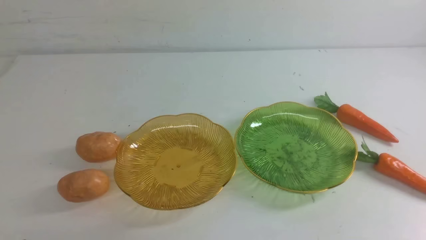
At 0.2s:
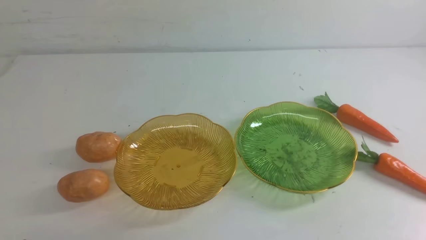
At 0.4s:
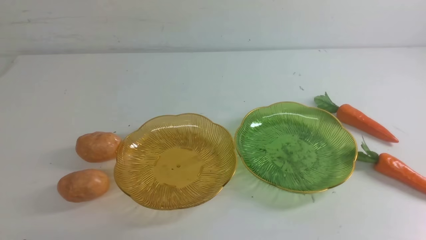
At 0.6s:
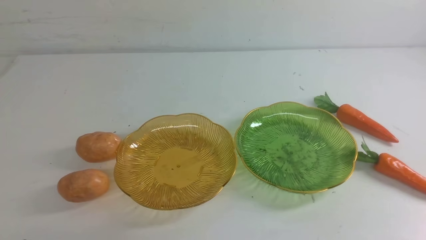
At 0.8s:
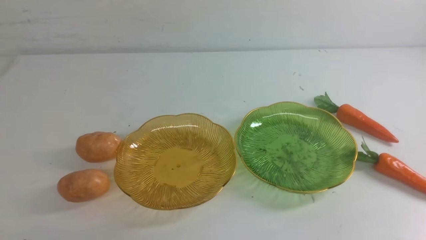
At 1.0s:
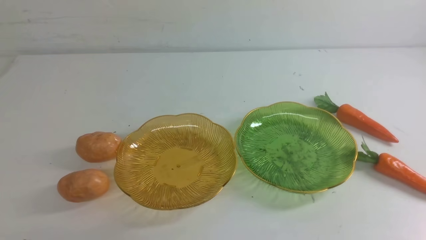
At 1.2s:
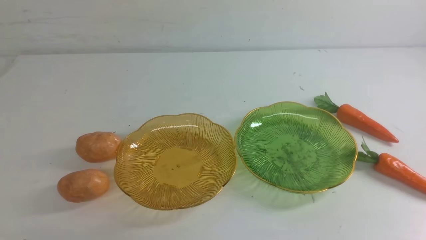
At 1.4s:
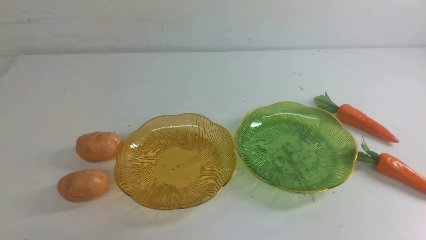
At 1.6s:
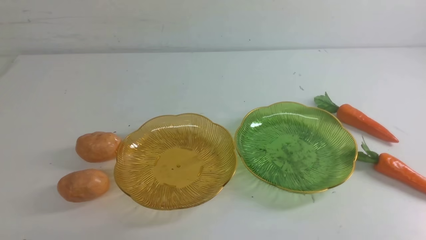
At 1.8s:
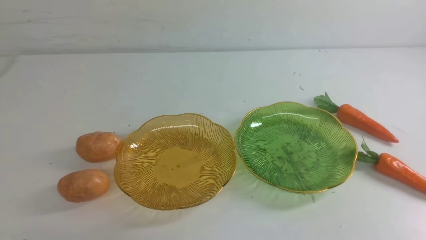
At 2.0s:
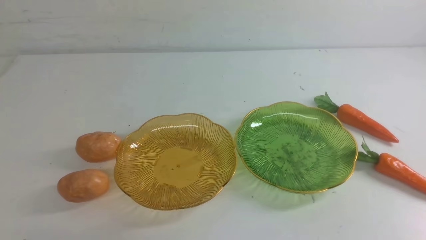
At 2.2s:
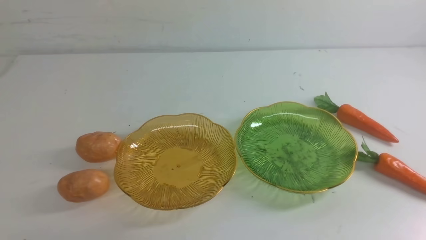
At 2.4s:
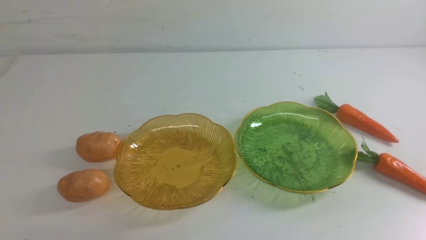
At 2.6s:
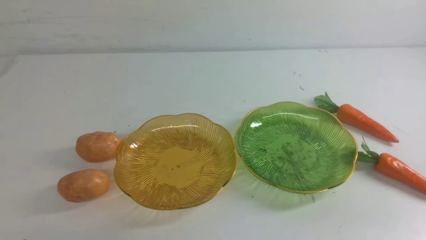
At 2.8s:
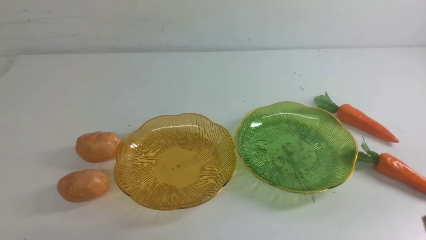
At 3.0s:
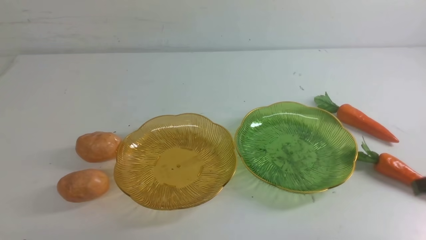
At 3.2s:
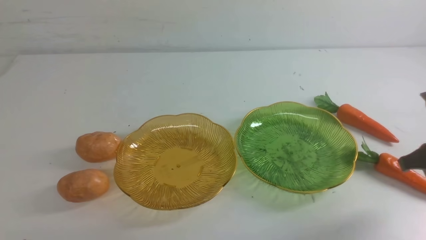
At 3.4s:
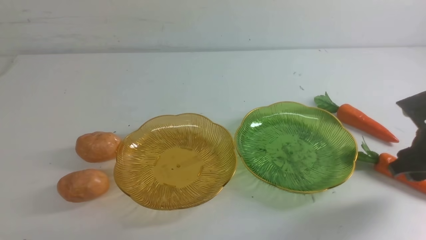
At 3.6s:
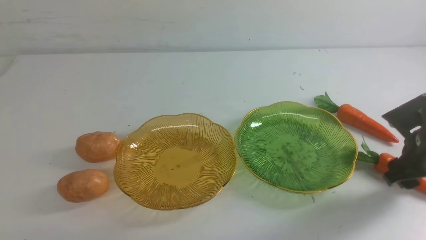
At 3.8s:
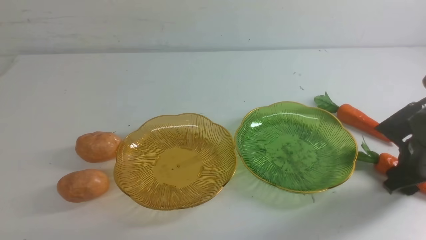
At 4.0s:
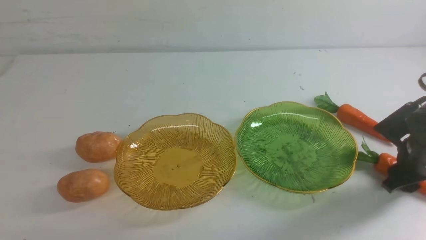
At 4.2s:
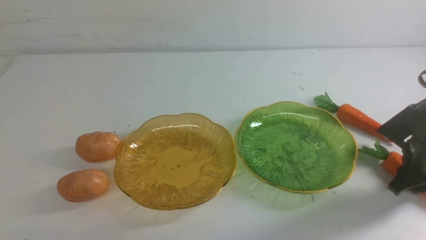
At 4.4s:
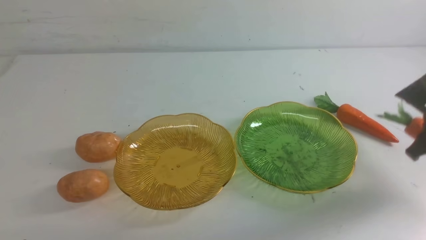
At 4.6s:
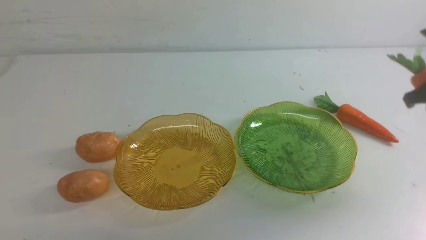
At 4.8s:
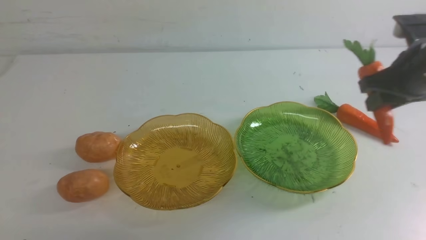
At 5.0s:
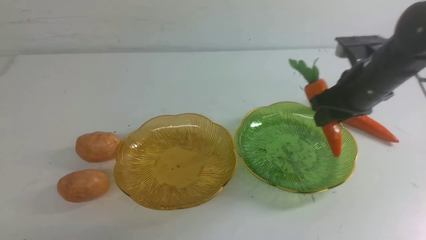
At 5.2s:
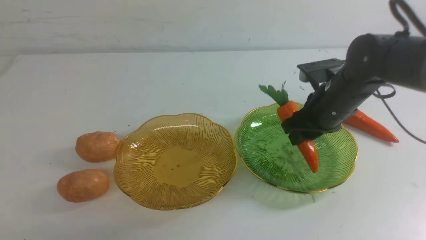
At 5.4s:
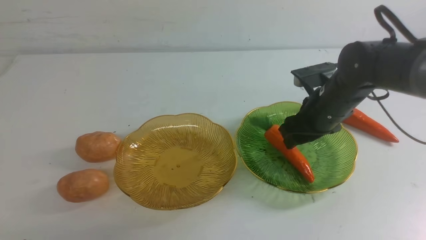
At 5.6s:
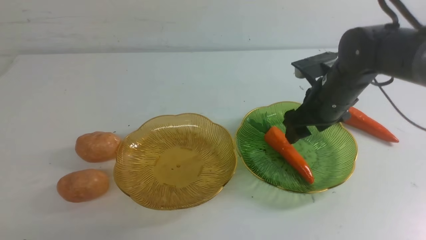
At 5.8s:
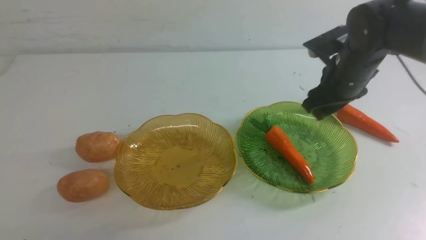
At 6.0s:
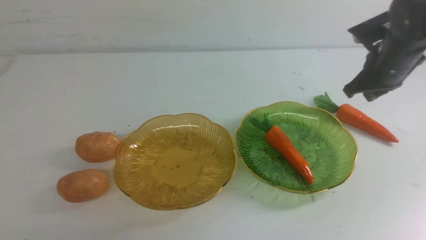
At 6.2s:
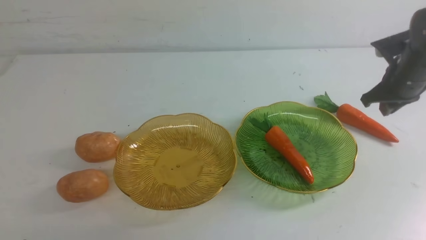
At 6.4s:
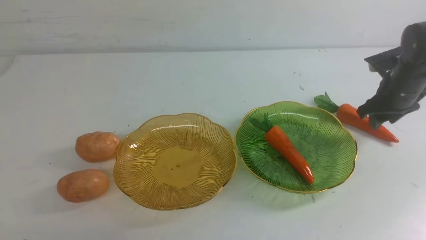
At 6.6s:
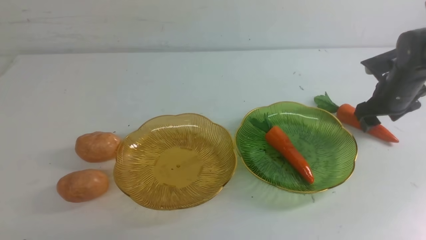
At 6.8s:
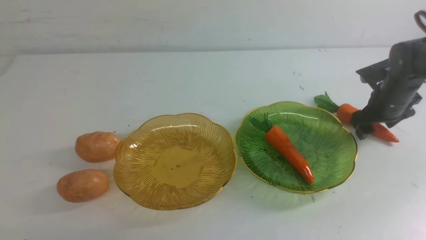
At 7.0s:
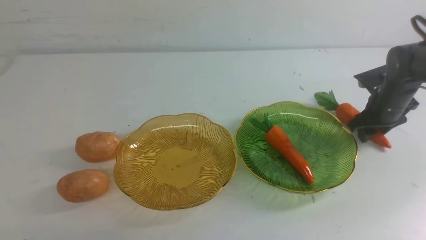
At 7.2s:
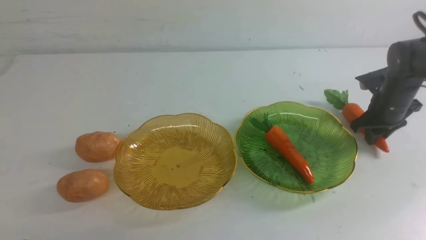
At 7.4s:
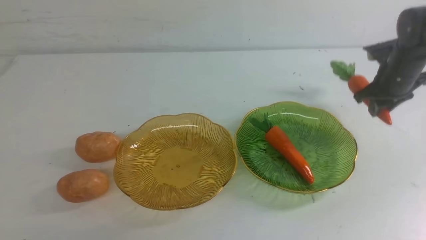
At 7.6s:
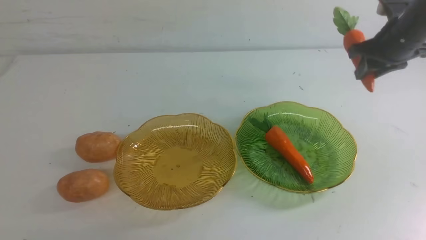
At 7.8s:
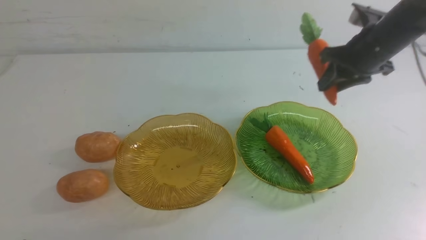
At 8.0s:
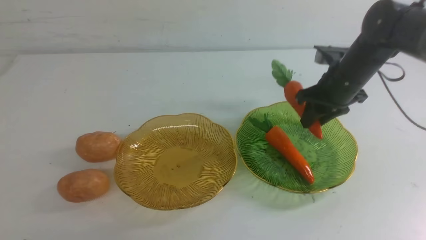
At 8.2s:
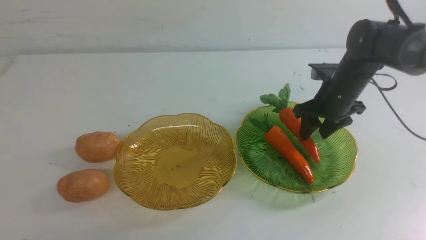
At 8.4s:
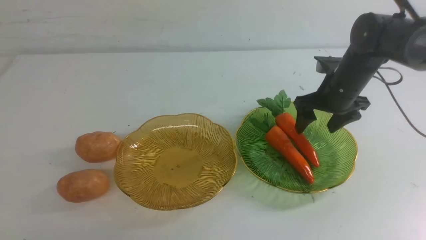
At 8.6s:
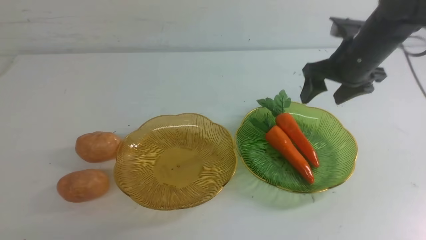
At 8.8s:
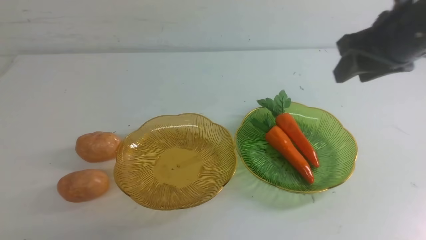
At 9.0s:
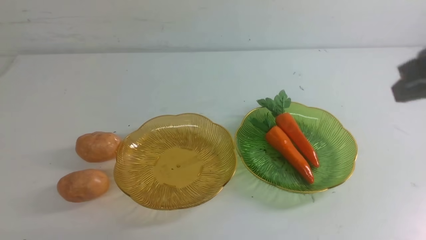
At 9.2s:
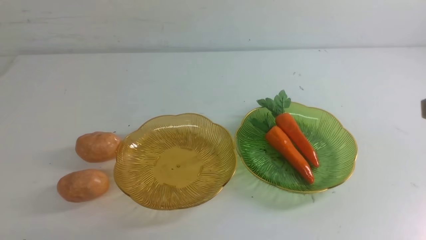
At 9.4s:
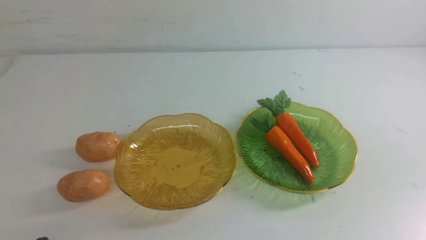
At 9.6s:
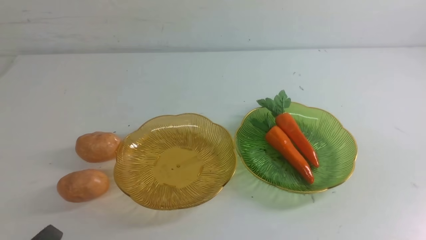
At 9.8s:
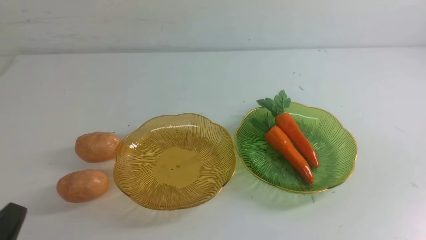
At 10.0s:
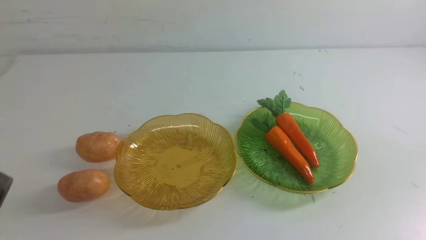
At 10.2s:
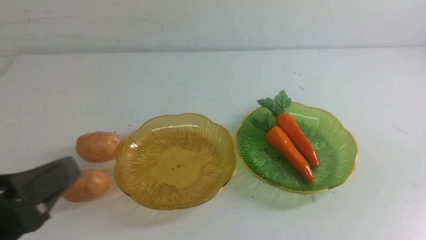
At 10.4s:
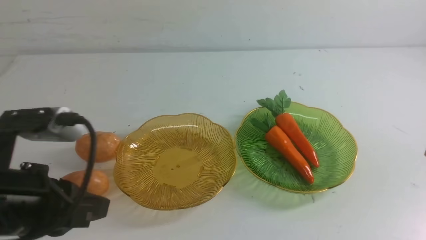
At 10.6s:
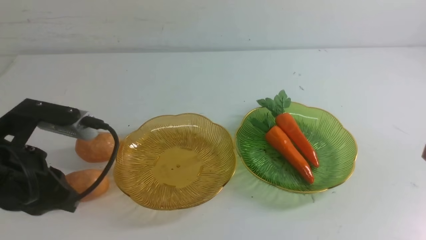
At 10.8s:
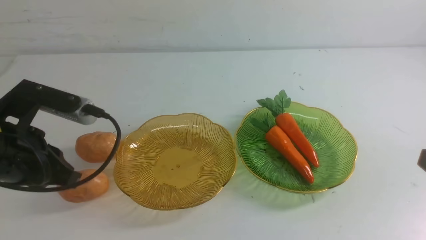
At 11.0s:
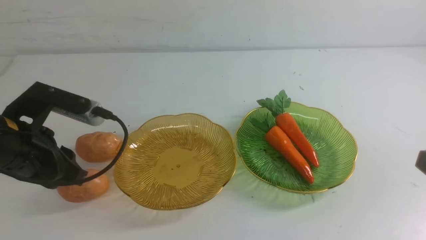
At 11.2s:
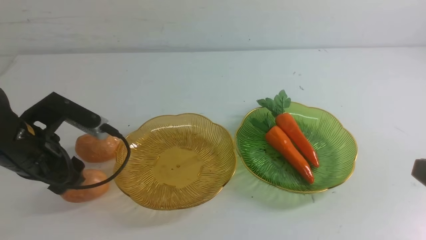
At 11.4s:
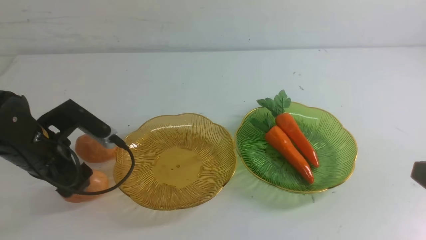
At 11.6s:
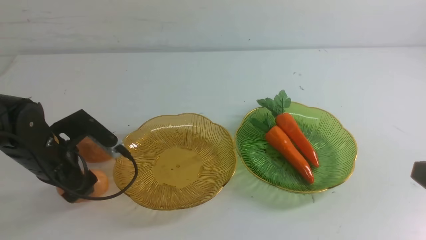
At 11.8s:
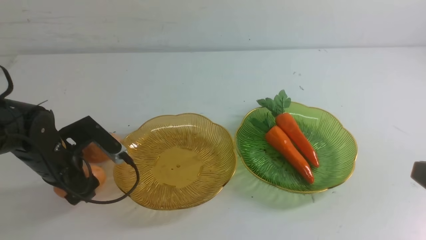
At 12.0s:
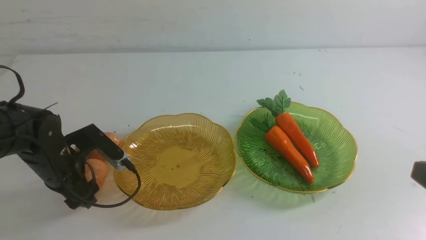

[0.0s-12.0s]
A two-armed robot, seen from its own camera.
Step, 0.0s to 8.4s: use the right arm to grab a carrot and put it into the right plate.
3.0s to 4.4s: The right gripper is displaced forward by some 10 cm, and opens up.
4.4s to 6.0s: The right gripper travels forward by approximately 10 cm, travels to the left and back again, about 15 cm each way, and opens and closes again.
6.0s to 7.6s: The right gripper moves to the left, about 10 cm, goes downward and returns, some 5 cm each way, and opens, then closes once more.
7.6s to 9.0s: The right gripper moves backward and upward, about 30 cm, and closes.
9.0s to 10.4s: The right gripper goes some 5 cm downward; the left gripper moves upward and forward, some 15 cm.
10.4s to 12.0s: The left gripper moves forward and downward, some 20 cm, and opens its fingers.

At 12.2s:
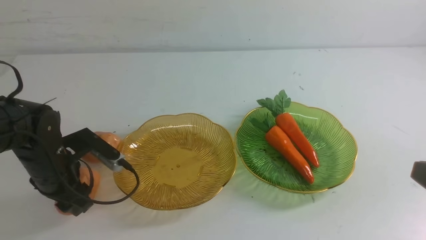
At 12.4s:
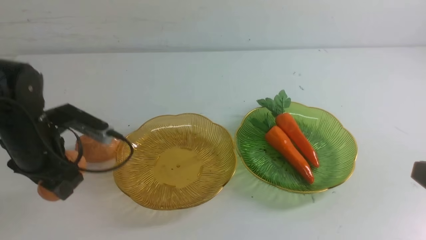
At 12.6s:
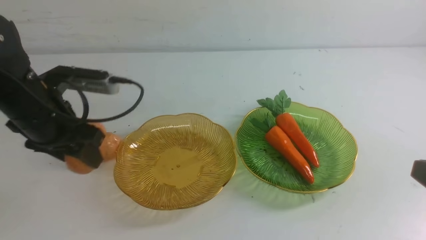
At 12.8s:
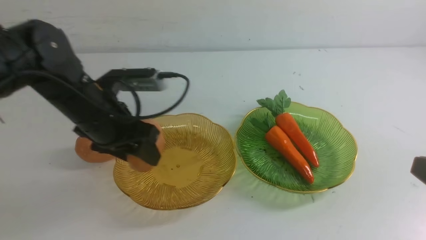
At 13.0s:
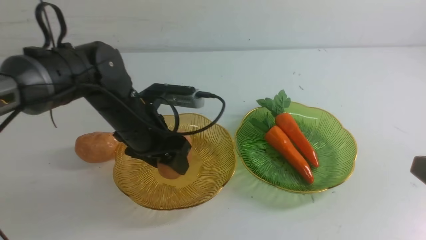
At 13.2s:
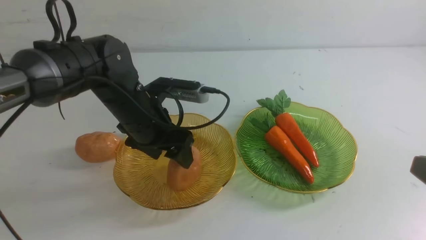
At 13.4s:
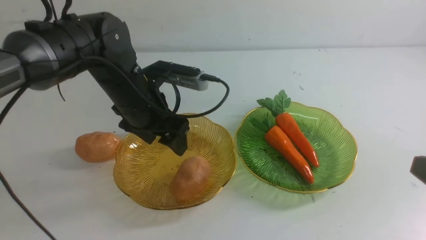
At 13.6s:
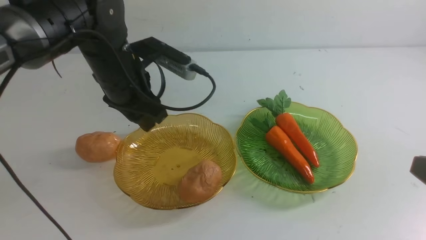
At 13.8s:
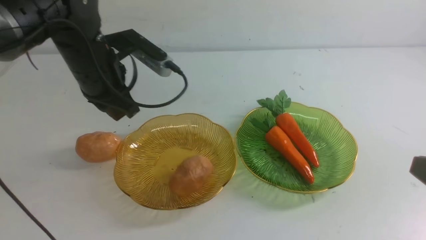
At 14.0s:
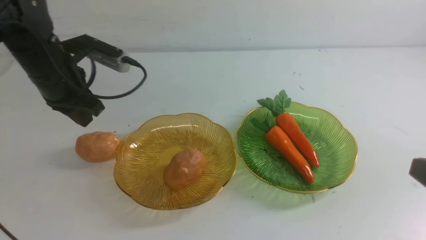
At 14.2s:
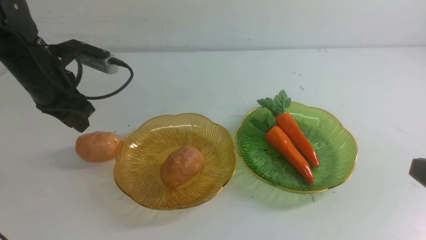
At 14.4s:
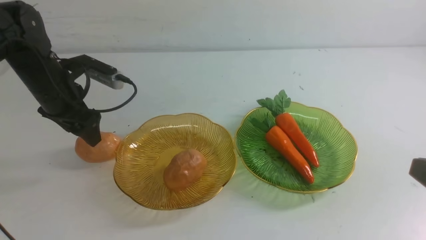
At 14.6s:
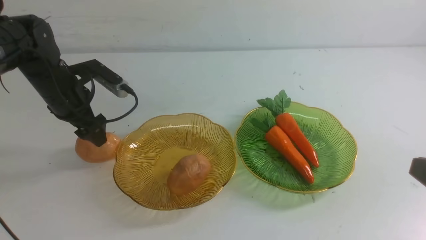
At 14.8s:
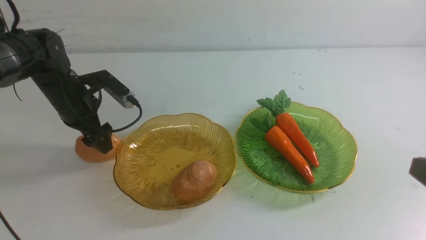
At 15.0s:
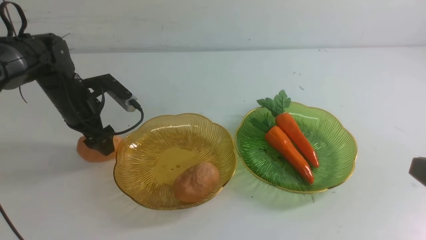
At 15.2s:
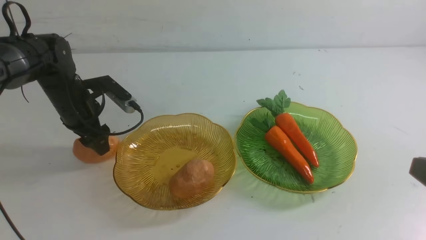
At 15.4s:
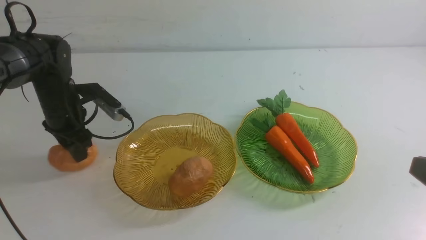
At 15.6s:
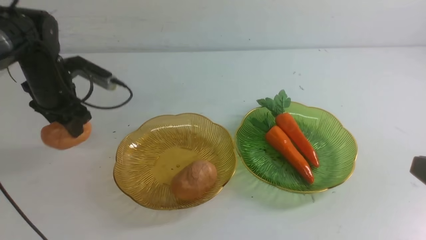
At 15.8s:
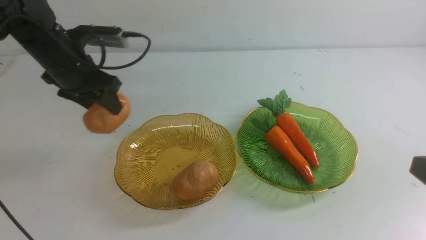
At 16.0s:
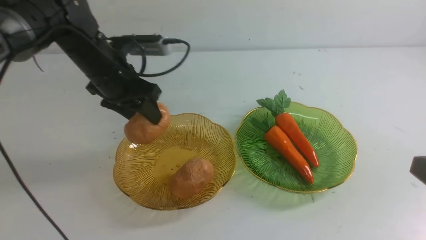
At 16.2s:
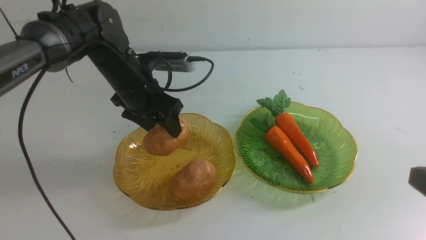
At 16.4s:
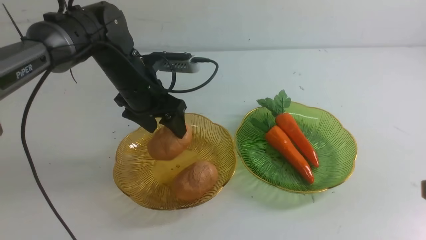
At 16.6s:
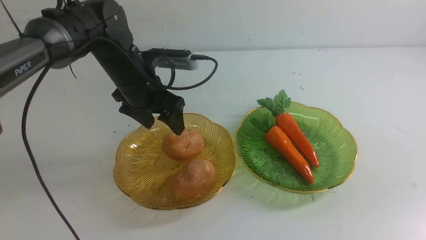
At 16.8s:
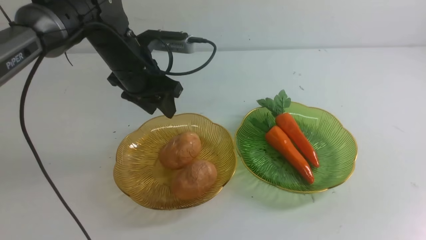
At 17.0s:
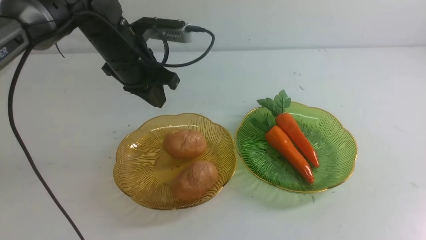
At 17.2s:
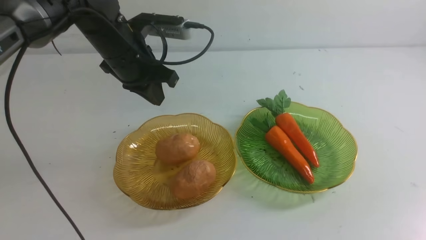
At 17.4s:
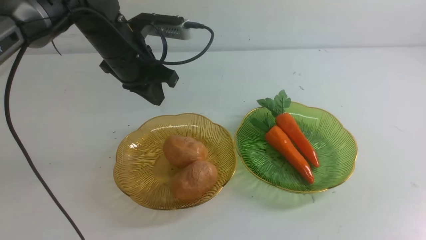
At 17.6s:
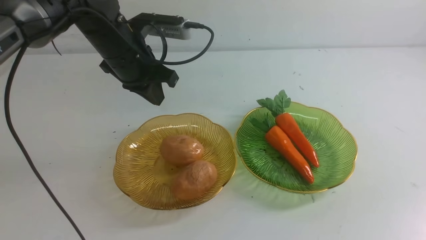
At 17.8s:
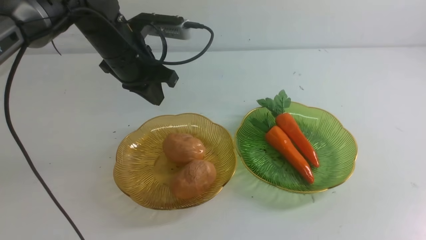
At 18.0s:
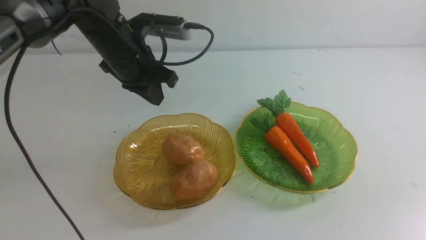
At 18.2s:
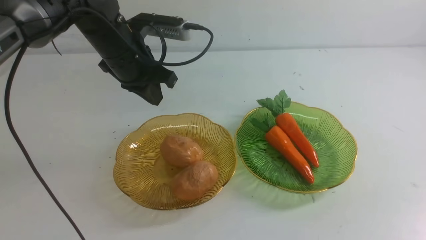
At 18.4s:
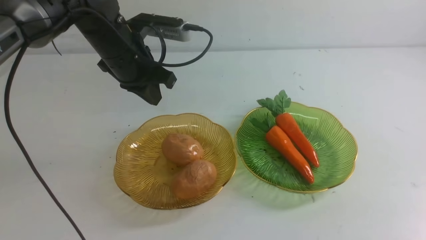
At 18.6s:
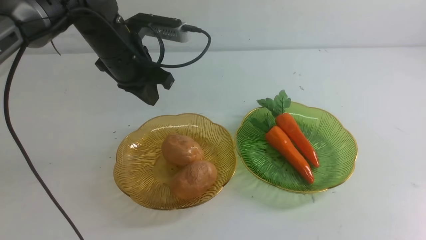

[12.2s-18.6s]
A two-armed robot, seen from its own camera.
Step, 12.2s to 16.6s: Grab a potato with your left arm and put it on the left plate.
12.2s to 13.8s: The left gripper goes roughly 10 cm forward, goes to the right and returns, roughly 10 cm each way, and closes, then opens again.
13.8s to 15.4s: The left gripper goes downward and returns, approximately 5 cm each way, and opens and closes again.
15.4s to 17.0s: The left gripper travels to the right by approximately 10 cm, and closes. Meanwhile the right gripper goes about 10 cm backward.
17.0s to 18.6s: The left gripper travels backward by roughly 5 cm, while the right gripper moves downward, roughly 10 cm.
